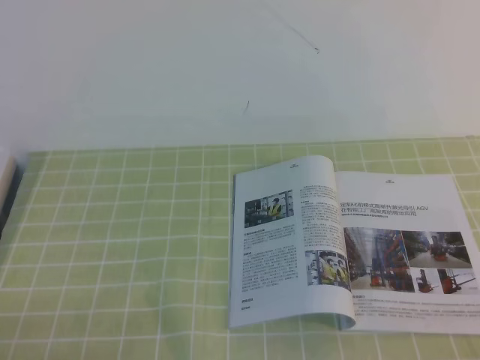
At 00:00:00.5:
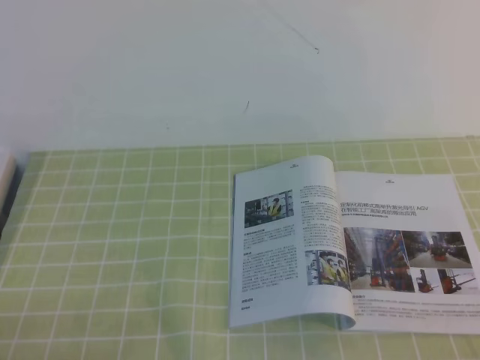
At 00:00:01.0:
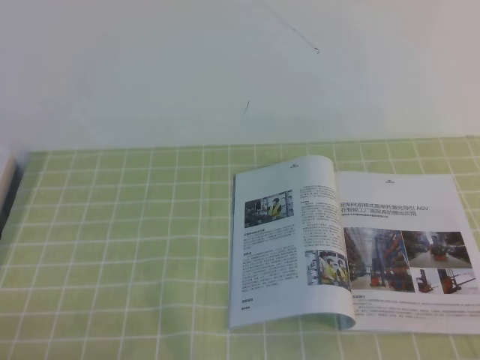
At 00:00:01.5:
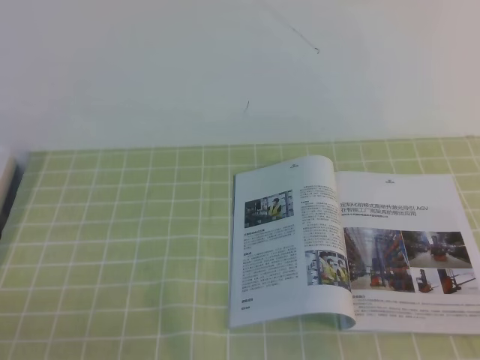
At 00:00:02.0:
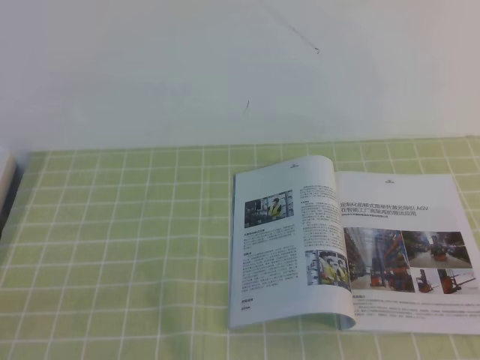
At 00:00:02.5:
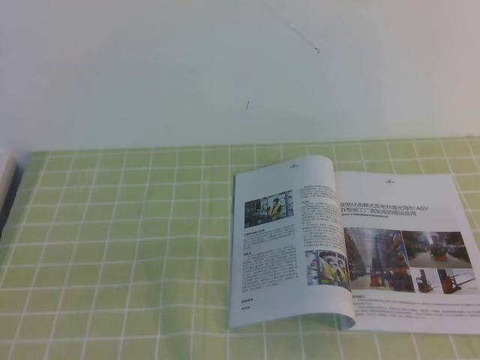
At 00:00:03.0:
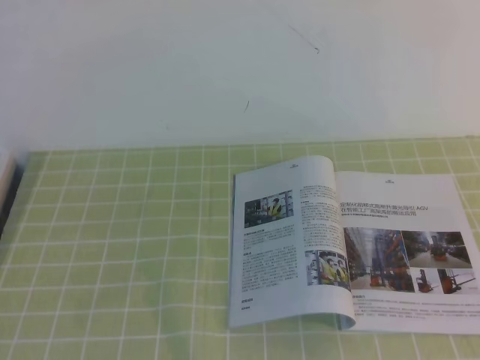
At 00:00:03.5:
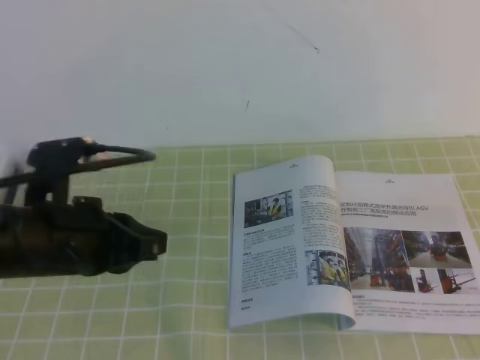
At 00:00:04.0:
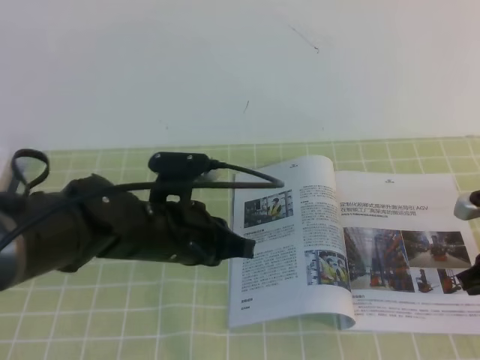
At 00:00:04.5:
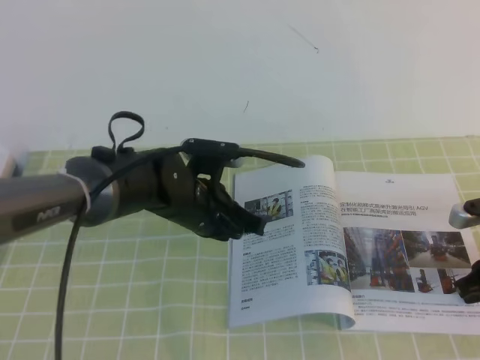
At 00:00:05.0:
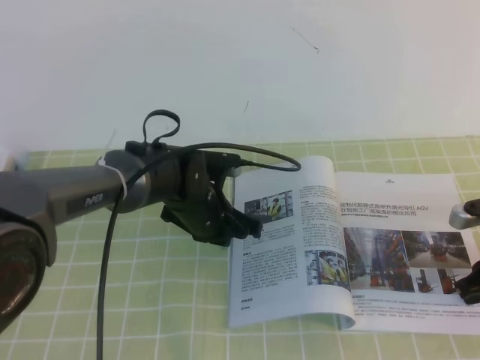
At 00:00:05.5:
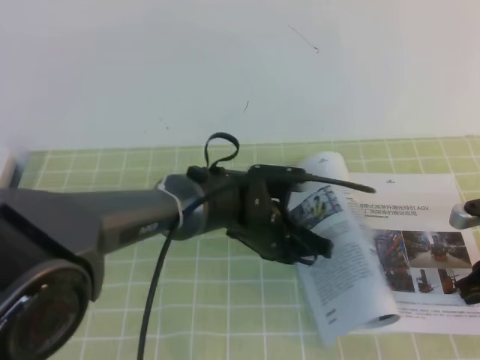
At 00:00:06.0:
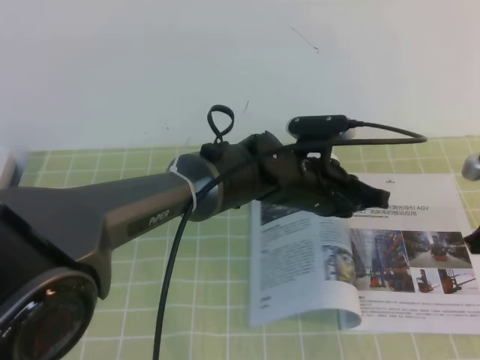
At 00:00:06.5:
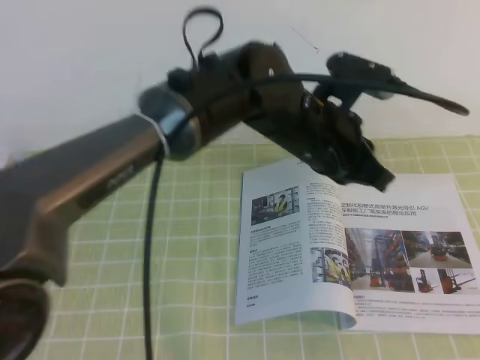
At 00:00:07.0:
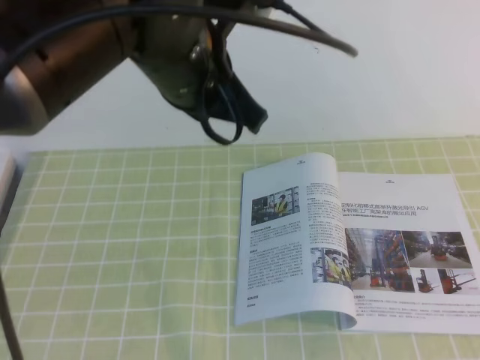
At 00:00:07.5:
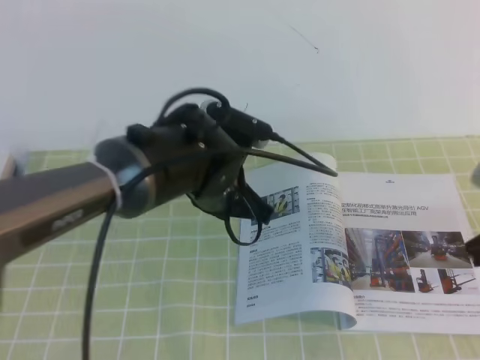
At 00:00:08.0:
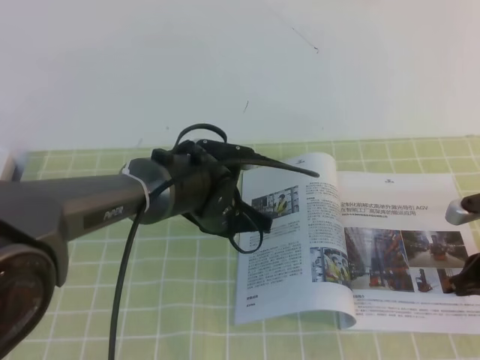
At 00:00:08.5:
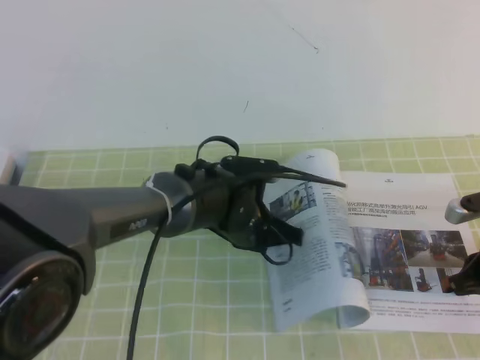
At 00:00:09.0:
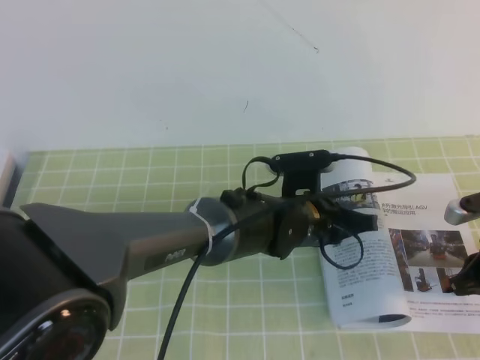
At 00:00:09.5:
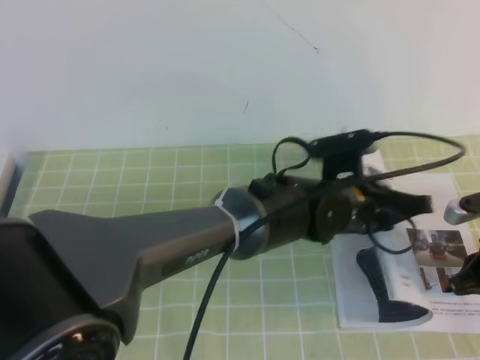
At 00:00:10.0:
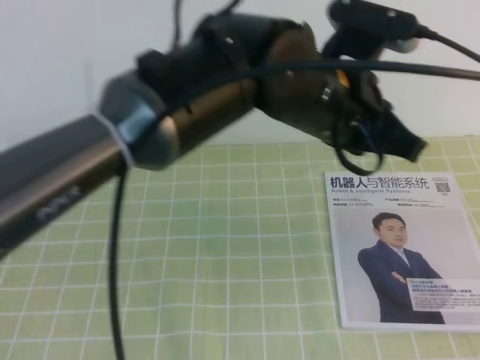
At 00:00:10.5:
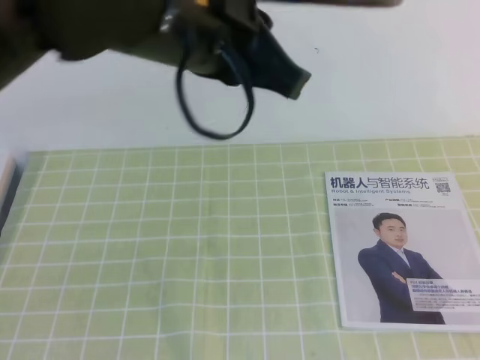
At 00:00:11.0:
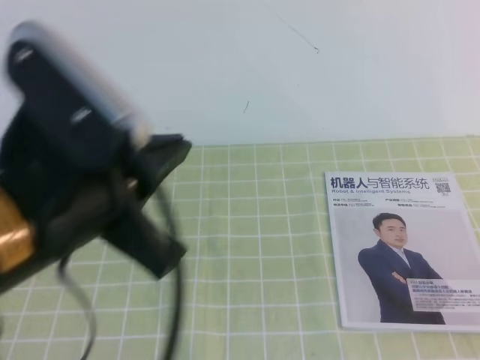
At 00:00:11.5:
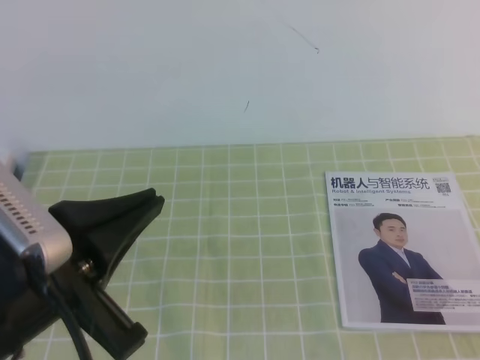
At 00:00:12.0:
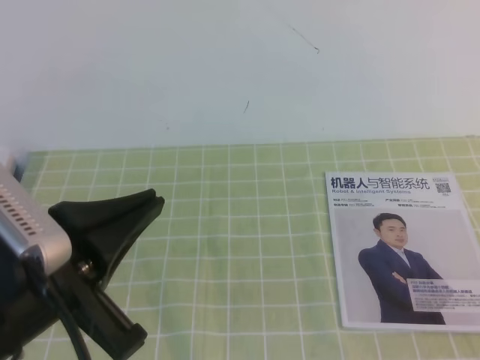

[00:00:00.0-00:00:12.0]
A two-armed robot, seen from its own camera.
Task of the whole recording: on the green tablecloth, hold the book with one hand and close it with the other.
00:00:02.0 to 00:00:04.0: The left gripper moves forward and to the right, approximately 30 cm. The right gripper travels forward by about 25 cm.
00:00:04.0 to 00:00:06.0: The left gripper is displaced to the right and forward by roughly 20 cm.
00:00:06.0 to 00:00:08.0: The left gripper moves to the left, roughly 10 cm, and goes upward and returns, some 20 cm each way. The right gripper reaches roughly 20 cm upward, then returns.
00:00:08.0 to 00:00:10.0: The left gripper moves upward, to the right and backward, roughly 25 cm; the right gripper travels upward by roughly 10 cm.
00:00:10.0 to 00:00:12.0: The right gripper is displaced backward by roughly 25 cm. Meanwhile the left gripper travels to the left and backward by roughly 30 cm.

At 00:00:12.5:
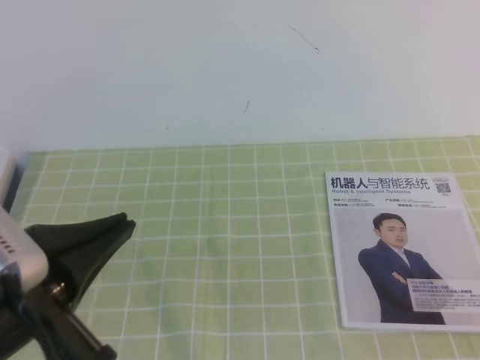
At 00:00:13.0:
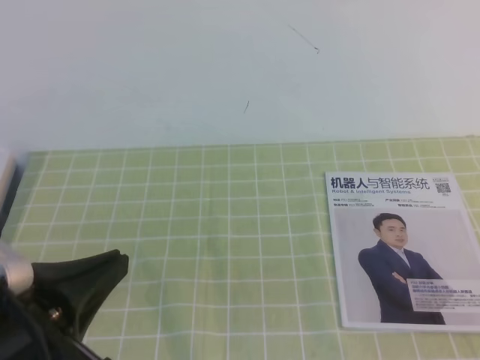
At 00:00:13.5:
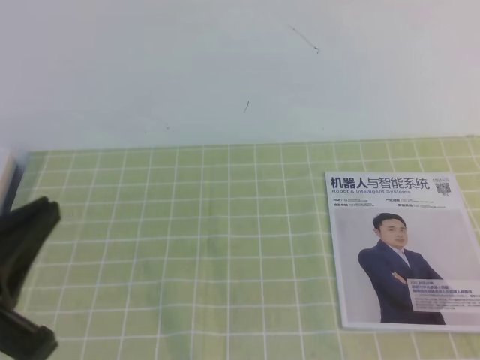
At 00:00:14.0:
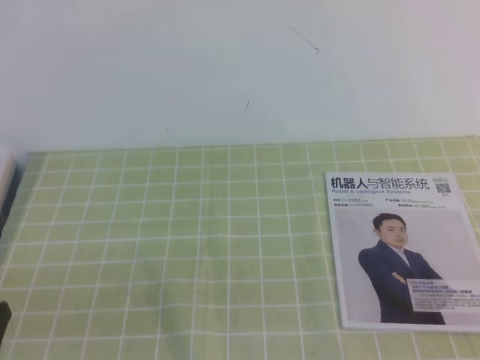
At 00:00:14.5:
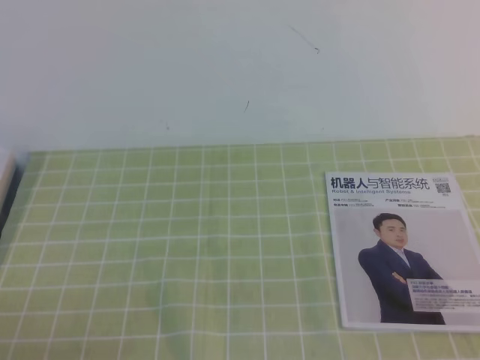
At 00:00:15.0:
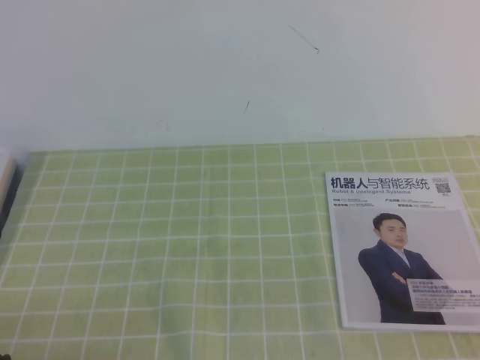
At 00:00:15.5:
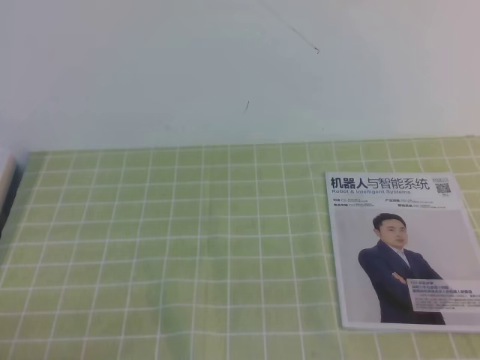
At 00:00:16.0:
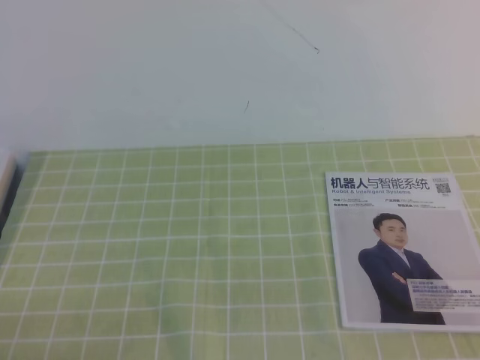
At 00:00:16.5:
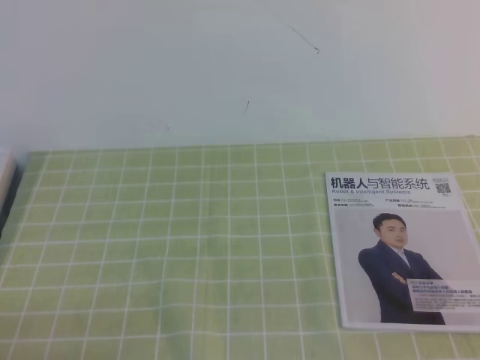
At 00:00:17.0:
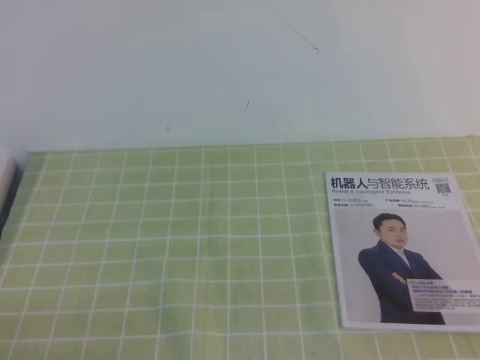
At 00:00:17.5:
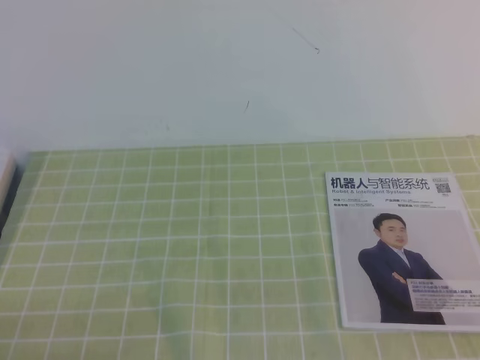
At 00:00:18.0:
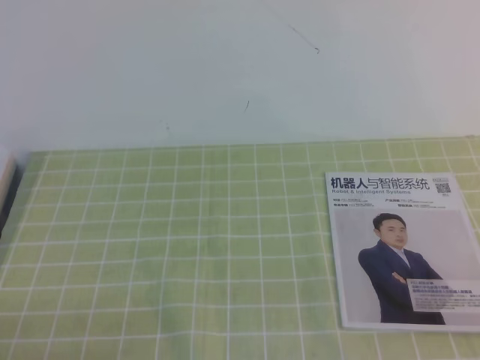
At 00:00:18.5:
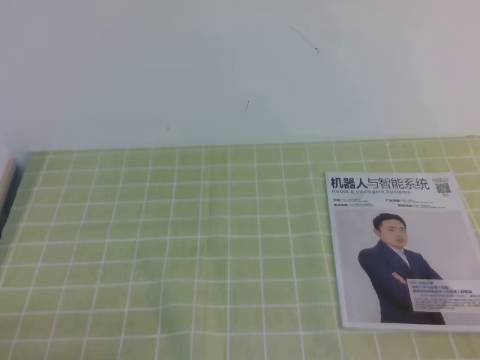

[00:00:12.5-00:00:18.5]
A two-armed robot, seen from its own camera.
Task of the whole recording: on the green tablecloth, hold the book with one hand and close it with the other.
Step, 00:00:12.5 to 00:00:18.5: Close the open book.
00:00:12.5 to 00:00:14.5: The left gripper is displaced downward and to the left by some 15 cm.
